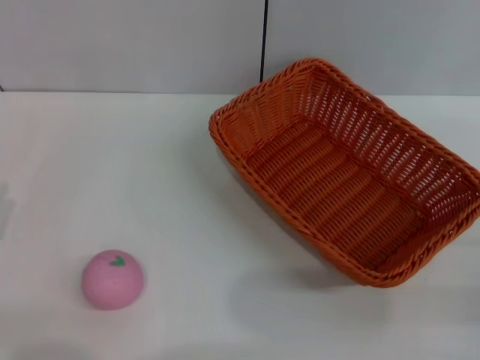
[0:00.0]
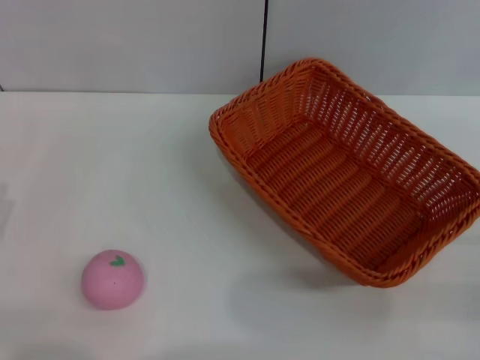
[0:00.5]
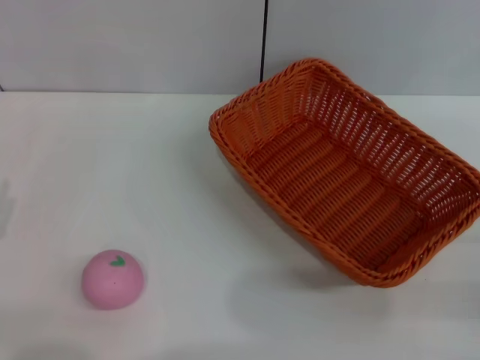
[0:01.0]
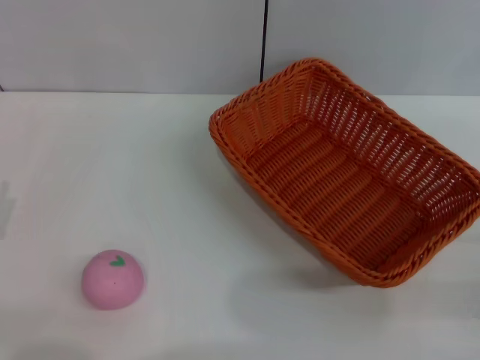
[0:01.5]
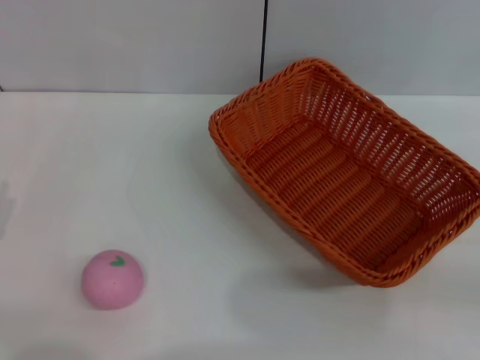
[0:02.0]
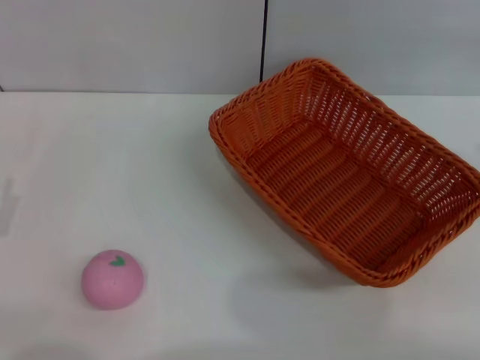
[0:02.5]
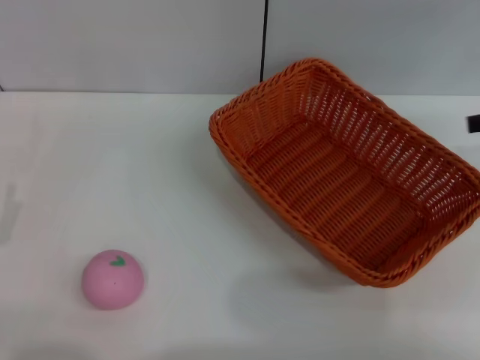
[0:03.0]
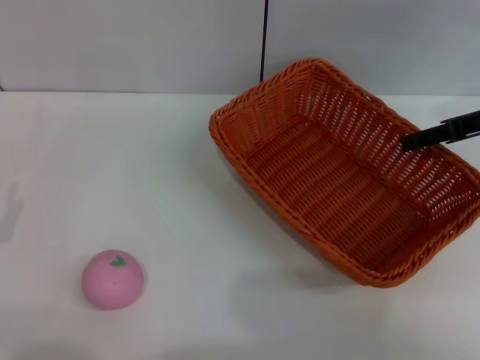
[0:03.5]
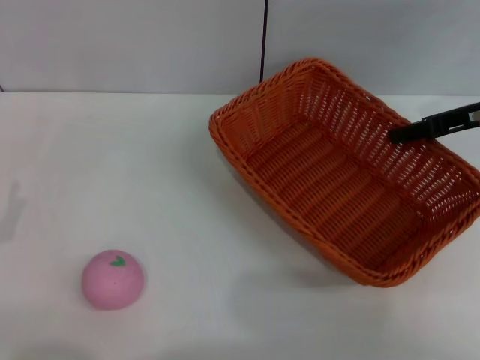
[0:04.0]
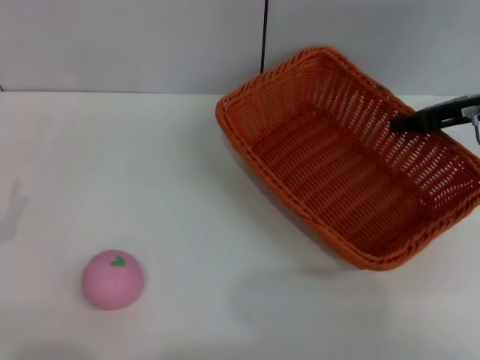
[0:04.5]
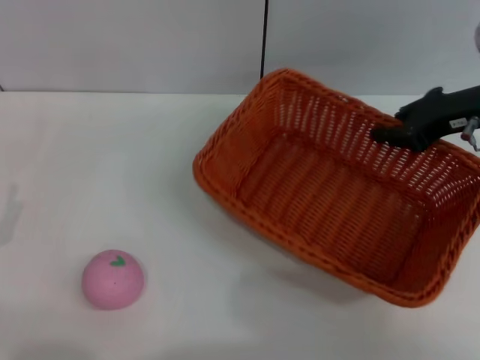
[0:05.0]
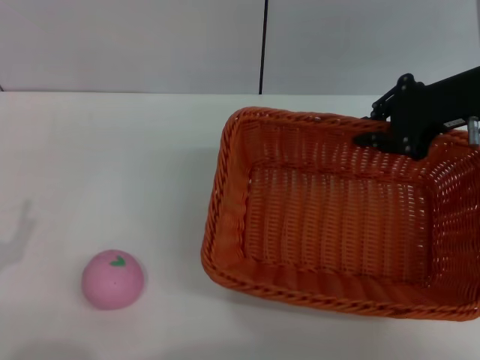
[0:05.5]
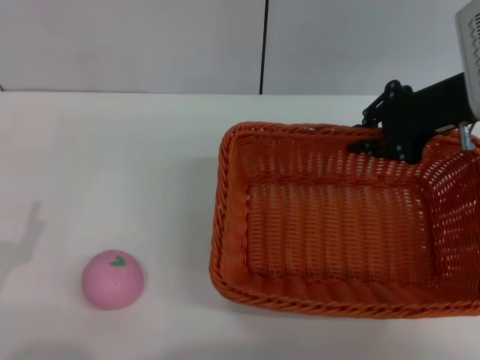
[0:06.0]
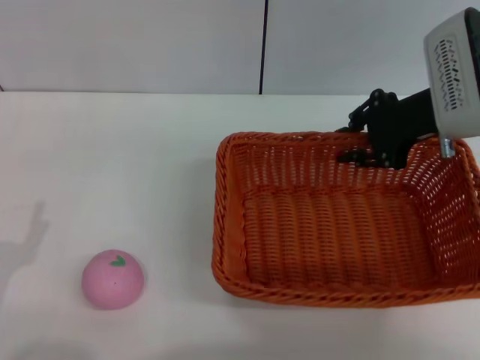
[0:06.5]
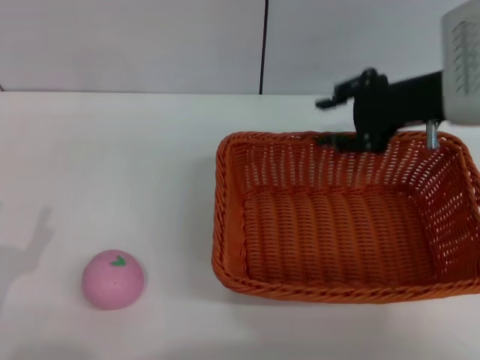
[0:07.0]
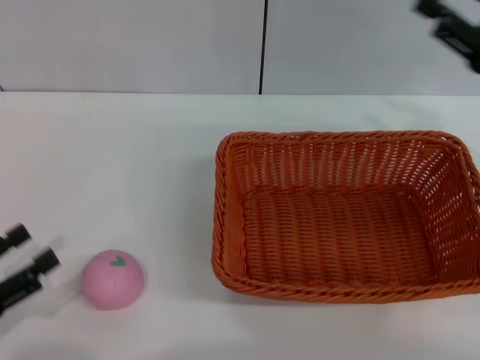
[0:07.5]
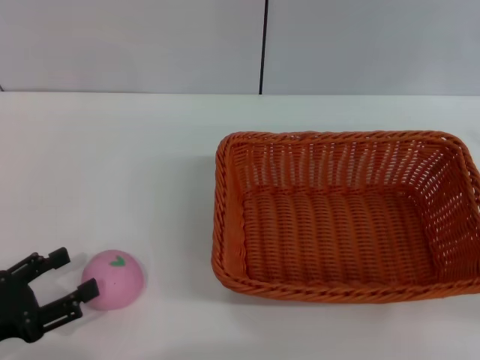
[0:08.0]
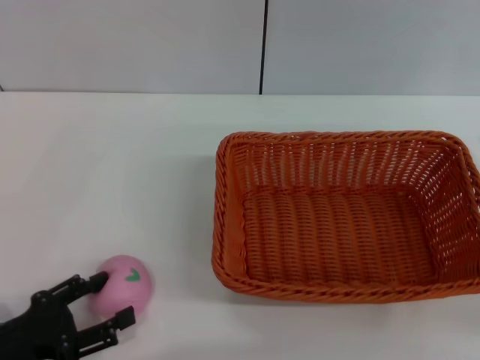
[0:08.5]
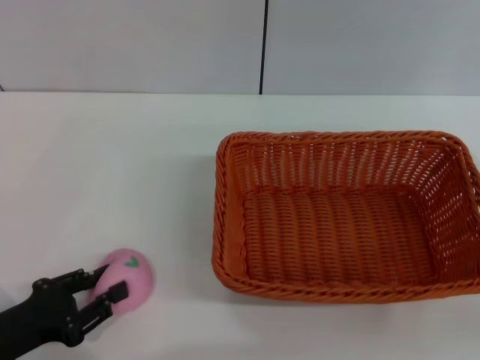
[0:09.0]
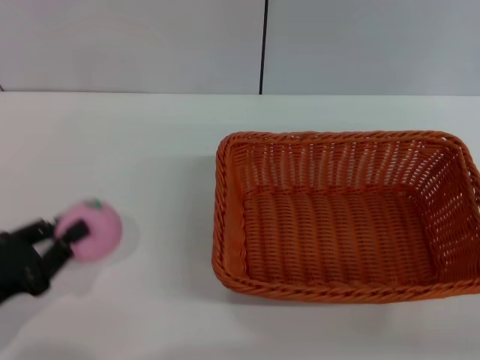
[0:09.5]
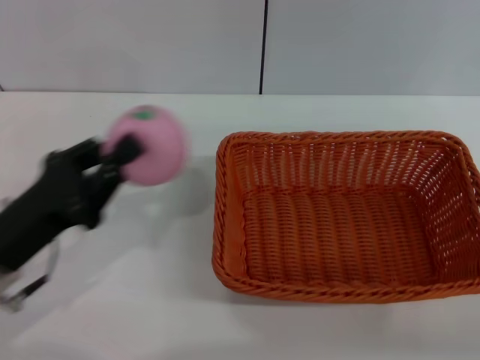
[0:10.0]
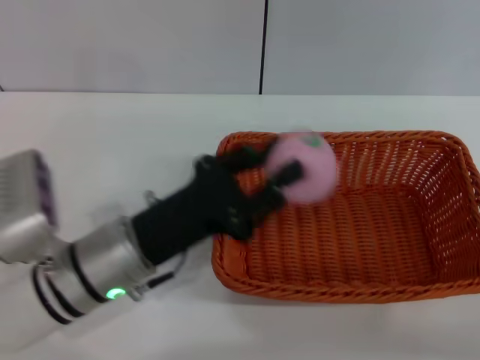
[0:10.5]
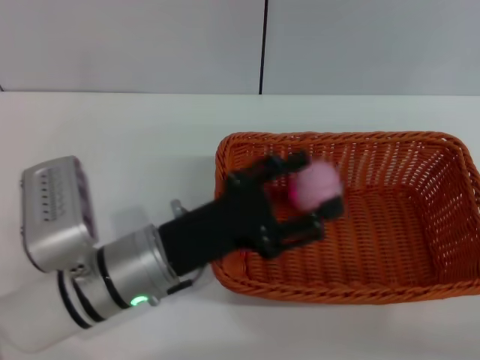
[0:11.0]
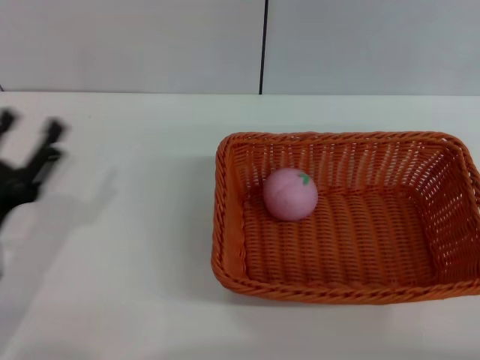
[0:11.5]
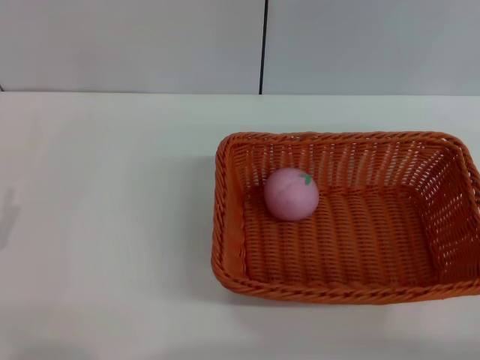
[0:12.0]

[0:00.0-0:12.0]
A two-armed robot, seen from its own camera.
Step, 0:00.0 to 0:05.0: Pick up the light basket with the right gripper.
Step, 0:05.5 to 0:07.0: Place the light basket in the center of view with the right gripper.
Step, 0:07.5 to 0:09.5: Pick up the peach with the left gripper.
Step, 0:10.0 to 0:11.0: Place the peach into the basket with the left gripper.
0:02.0 to 0:04.0: The right gripper is displaced forward and to the left by about 20 cm.
0:04.0 to 0:06.0: The right gripper travels to the left by roughly 5 cm, and closes its fingers.
0:06.0 to 0:08.0: The right gripper goes roughly 20 cm backward and to the right, and opens.
0:08.0 to 0:10.0: The right gripper shifts by approximately 5 cm. Meanwhile the left gripper travels to the right and forward by some 10 cm, and closes up.
0:10.0 to 0:12.0: The left gripper heads backward, covering about 5 cm, travels to the right and back again, approximately 15 cm each way, and opens.

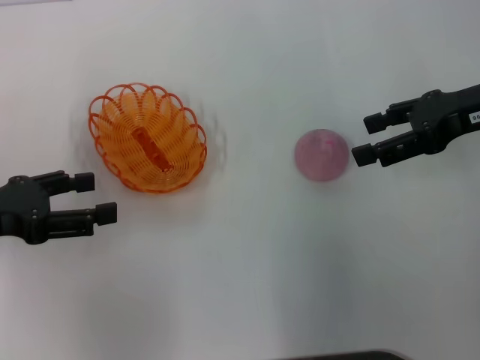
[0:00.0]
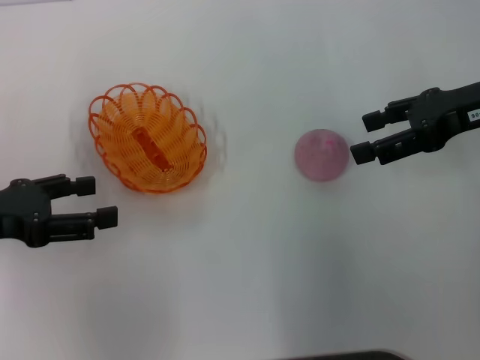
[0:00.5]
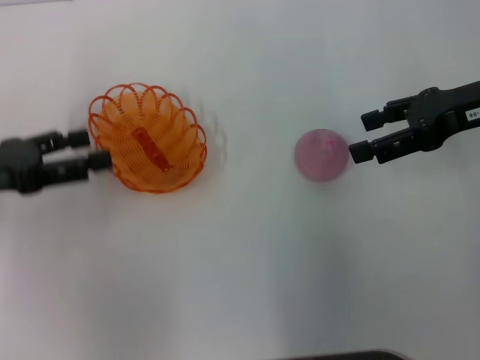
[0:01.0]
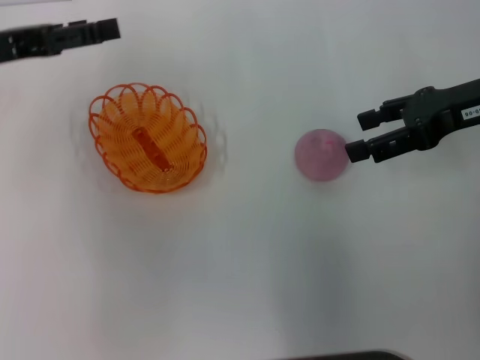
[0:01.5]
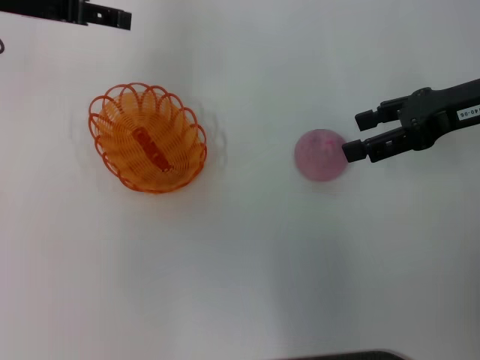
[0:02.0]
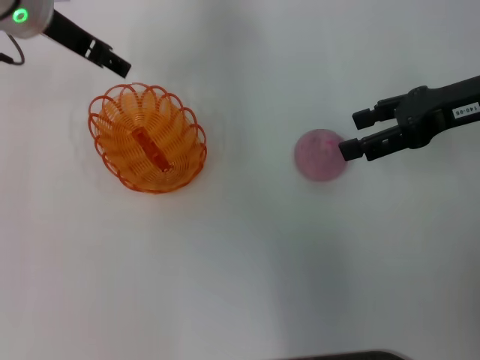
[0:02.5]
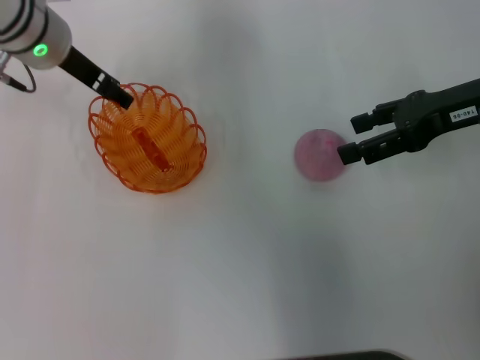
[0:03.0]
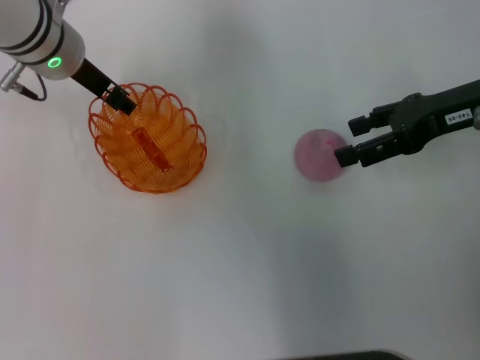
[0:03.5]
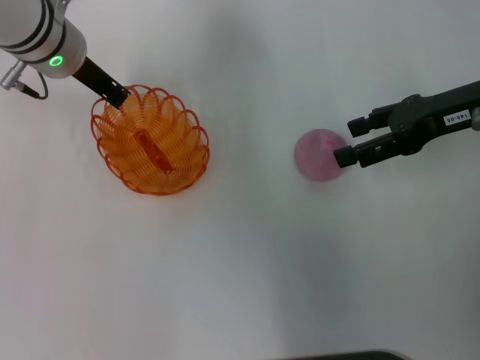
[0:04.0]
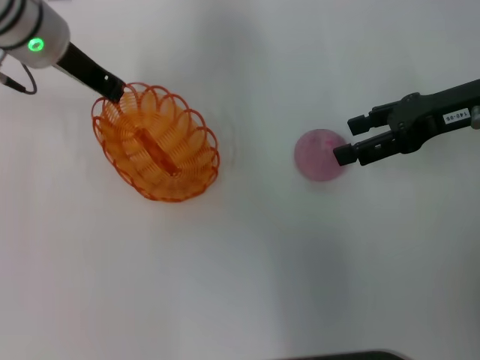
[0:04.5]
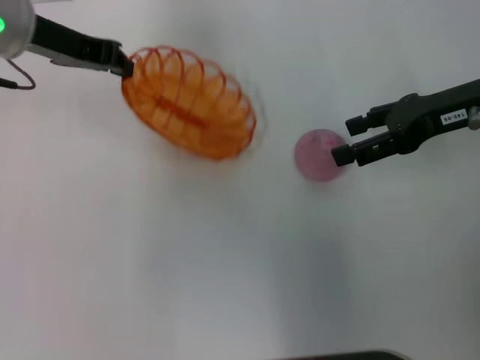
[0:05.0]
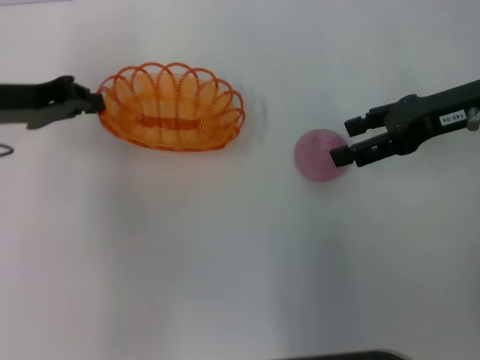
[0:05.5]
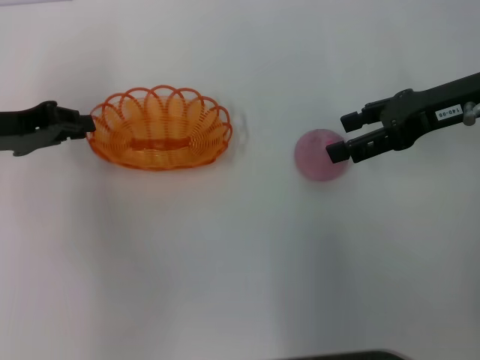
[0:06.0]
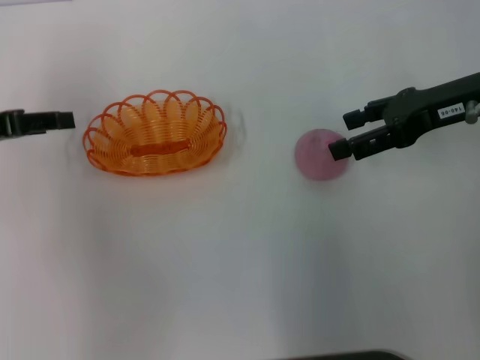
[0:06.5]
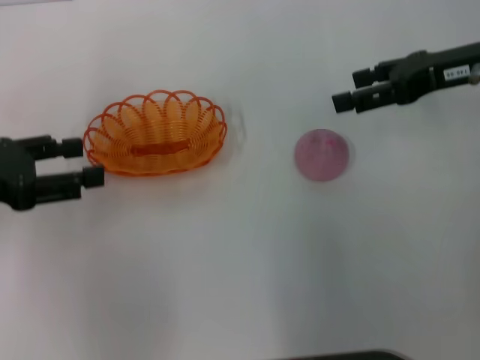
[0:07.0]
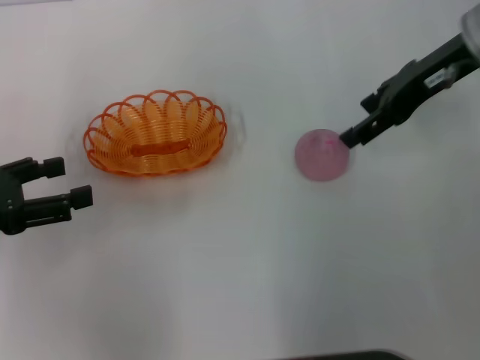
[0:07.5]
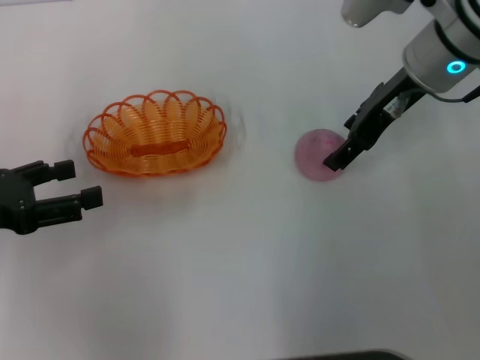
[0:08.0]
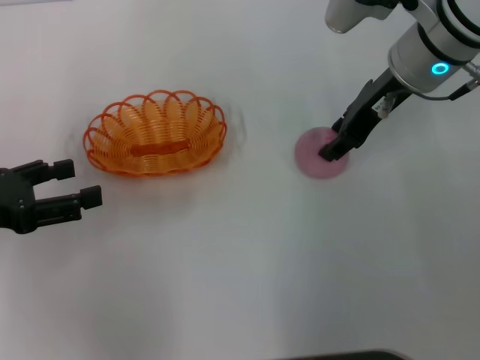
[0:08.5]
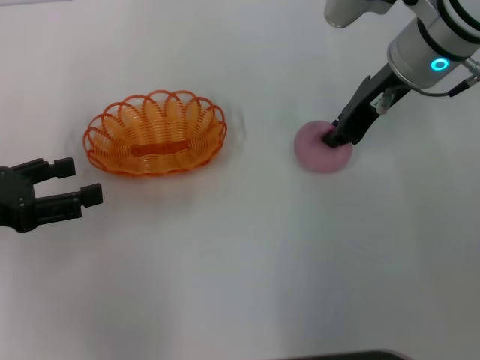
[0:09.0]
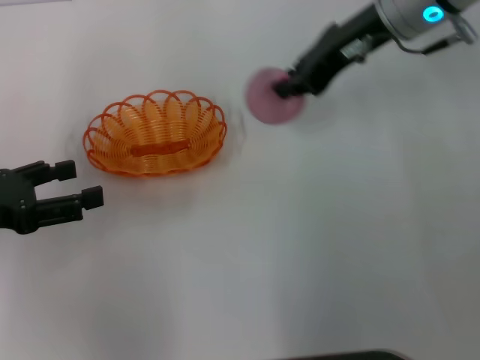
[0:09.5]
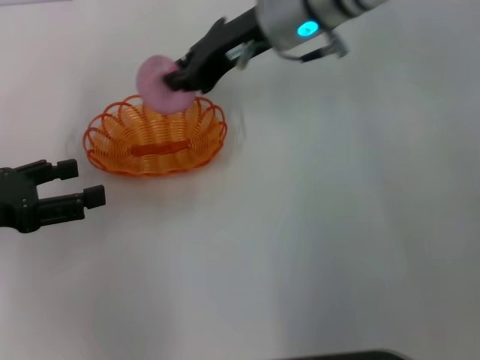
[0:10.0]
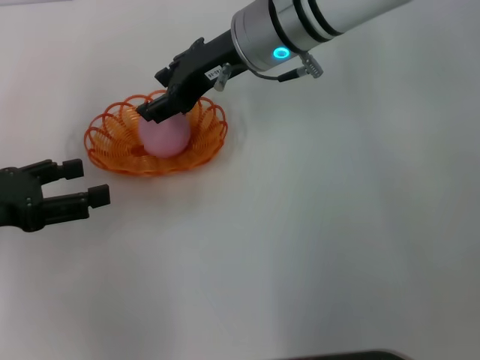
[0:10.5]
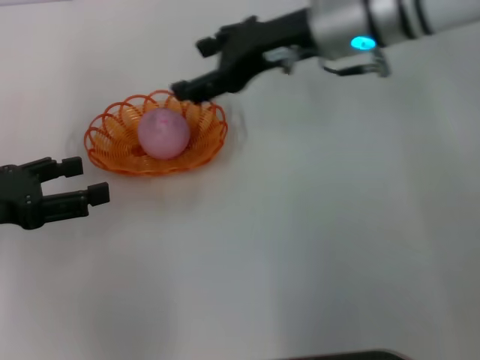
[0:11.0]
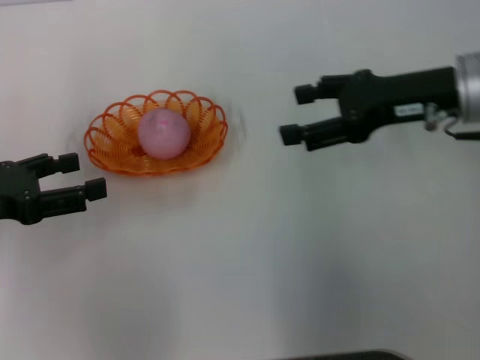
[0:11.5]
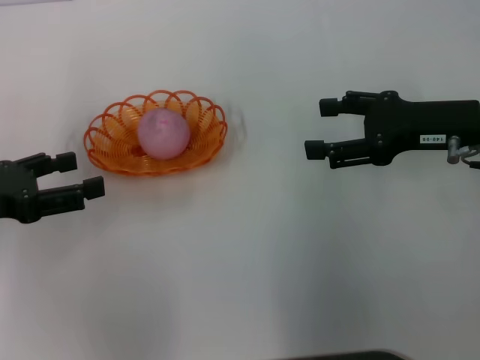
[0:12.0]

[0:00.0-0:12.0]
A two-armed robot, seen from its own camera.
Step, 0:00.0 to 0:04.0: Pick up the basket with the left gripper.
Step, 0:04.5 to 0:06.0: Place the basket in the center of view with the left gripper.
Step, 0:06.5 to 0:09.0: Pick up the peach with the right gripper.
Step, 0:10.0 to 0:10.5: Place the peach into the basket with the right gripper.
0:00.0 to 0:02.0: The left gripper shifts some 20 cm forward, upward and to the right.
0:02.0 to 0:04.0: The left gripper travels to the right and downward by some 10 cm, and closes up.
0:04.0 to 0:06.0: The left gripper goes roughly 15 cm to the left and backward.
0:06.0 to 0:08.0: The left gripper is displaced backward by approximately 10 cm, and opens up. The right gripper moves to the left, approximately 10 cm.
0:08.0 to 0:10.0: The right gripper moves to the left, approximately 10 cm, and closes up.
0:10.0 to 0:12.0: The right gripper heads to the right and backward, covering approximately 20 cm, and opens its fingers.
